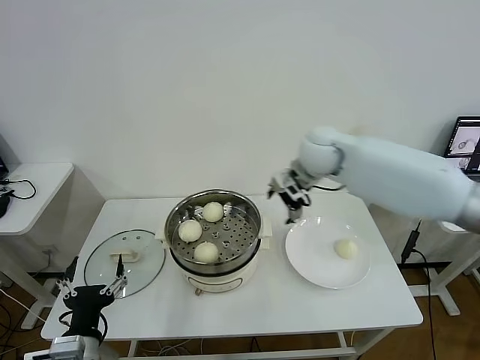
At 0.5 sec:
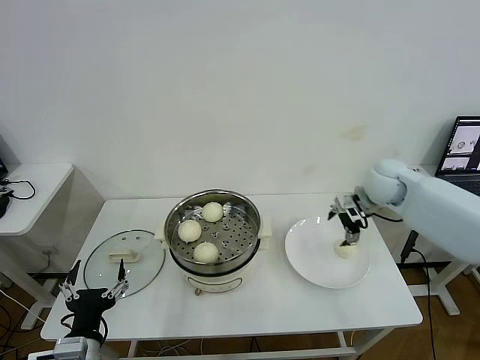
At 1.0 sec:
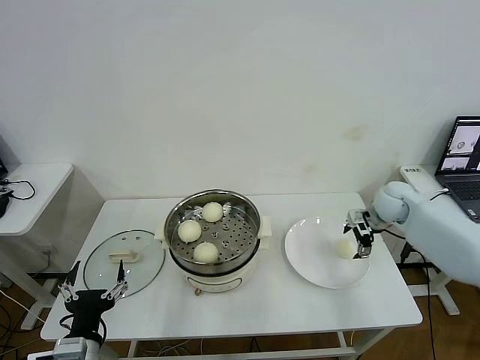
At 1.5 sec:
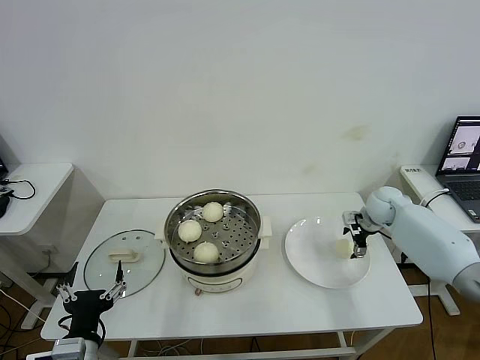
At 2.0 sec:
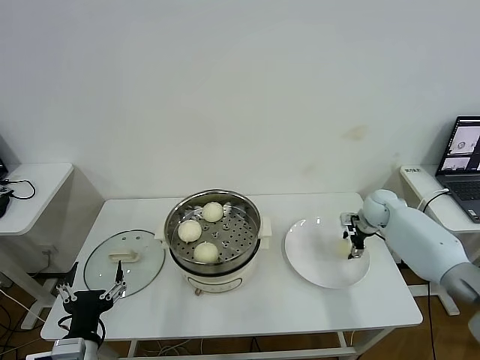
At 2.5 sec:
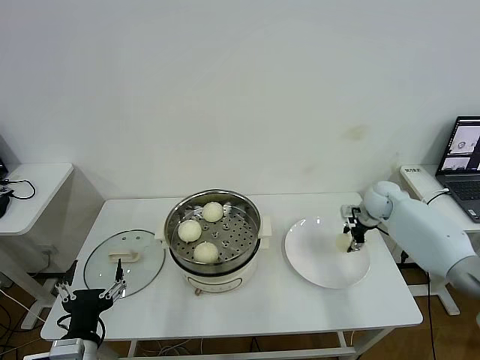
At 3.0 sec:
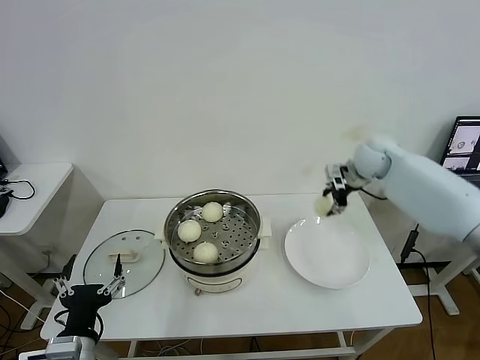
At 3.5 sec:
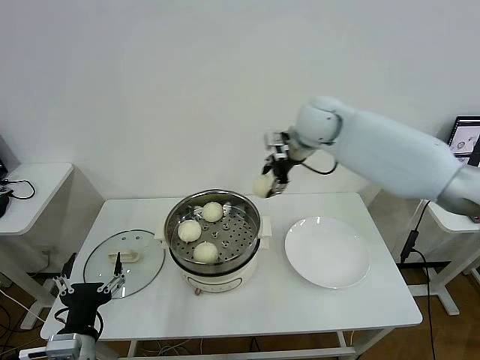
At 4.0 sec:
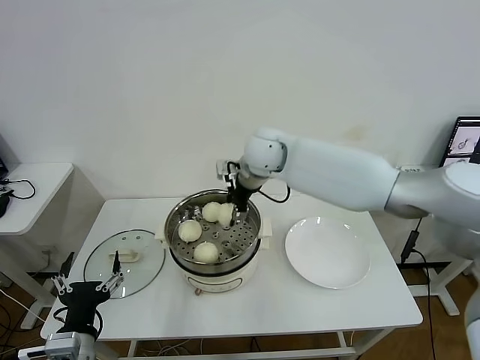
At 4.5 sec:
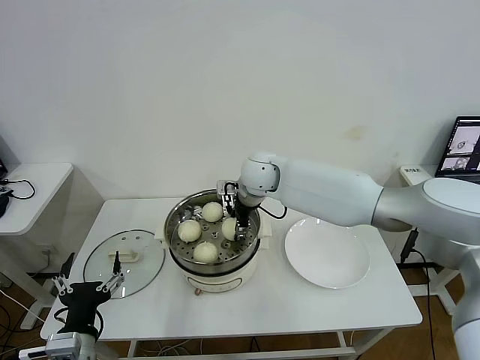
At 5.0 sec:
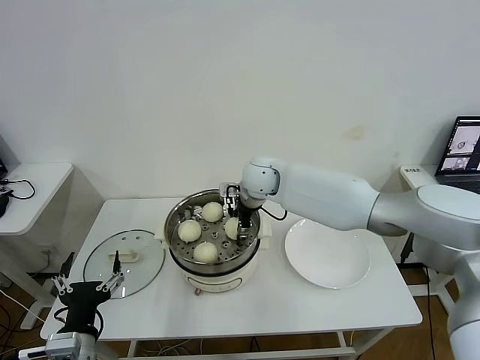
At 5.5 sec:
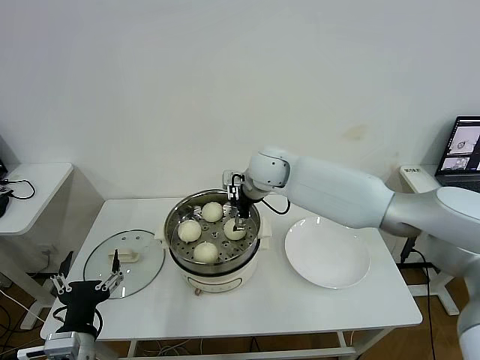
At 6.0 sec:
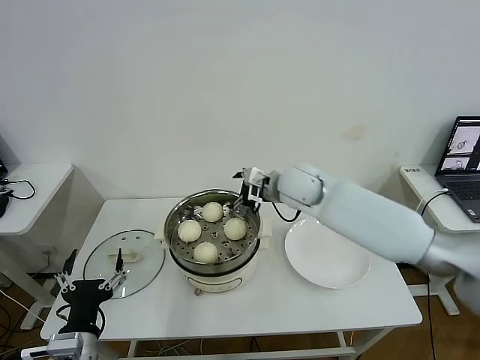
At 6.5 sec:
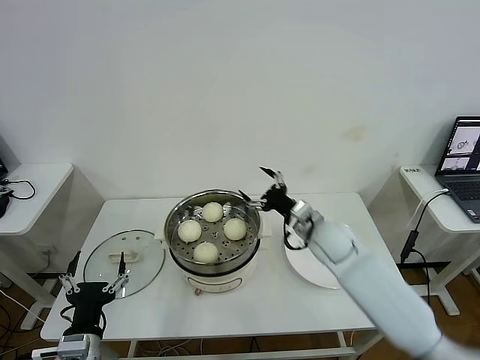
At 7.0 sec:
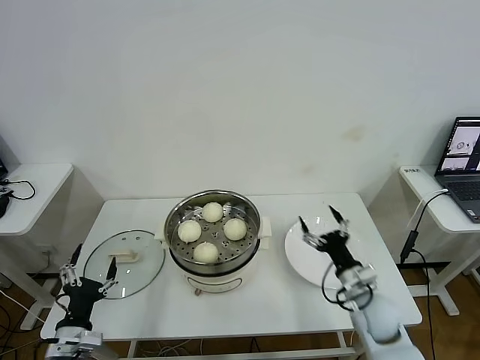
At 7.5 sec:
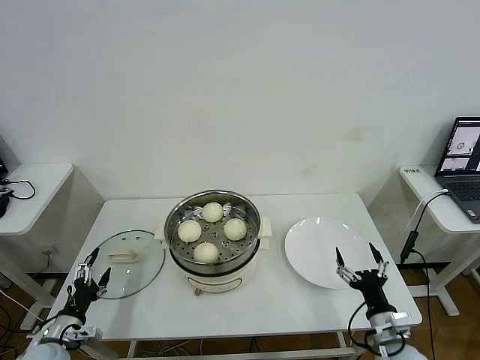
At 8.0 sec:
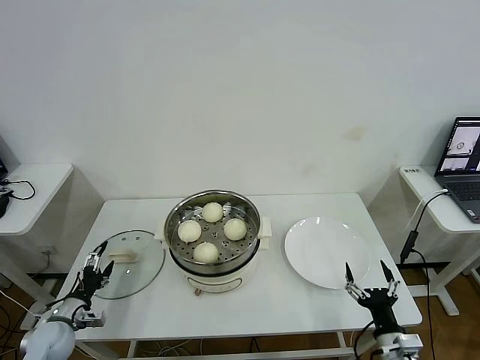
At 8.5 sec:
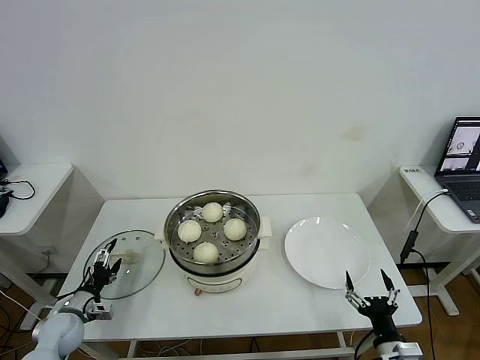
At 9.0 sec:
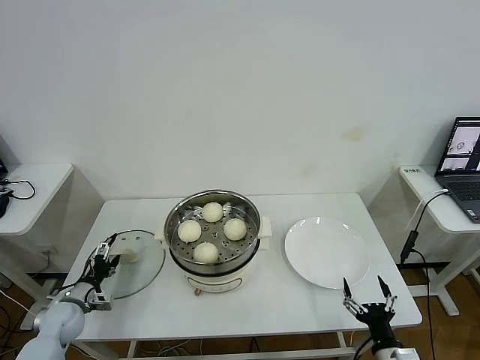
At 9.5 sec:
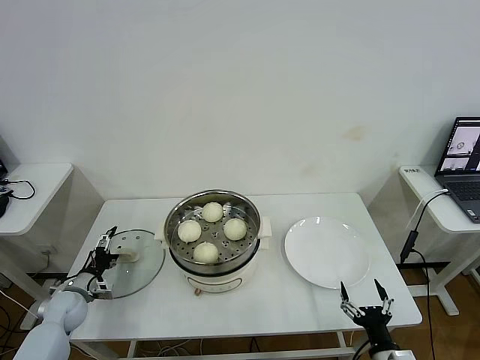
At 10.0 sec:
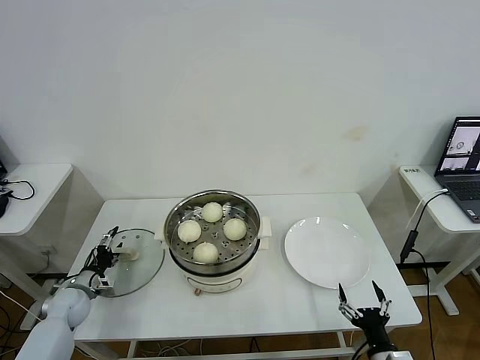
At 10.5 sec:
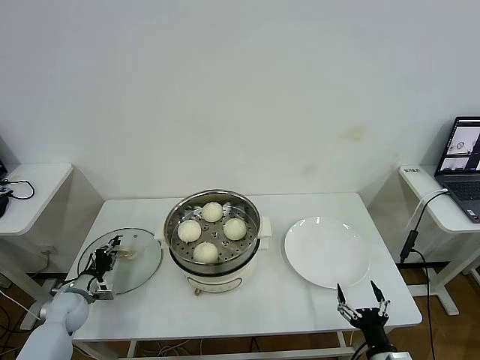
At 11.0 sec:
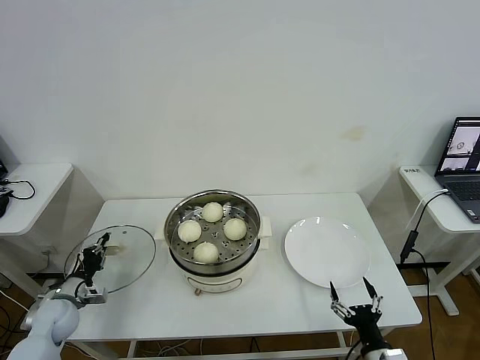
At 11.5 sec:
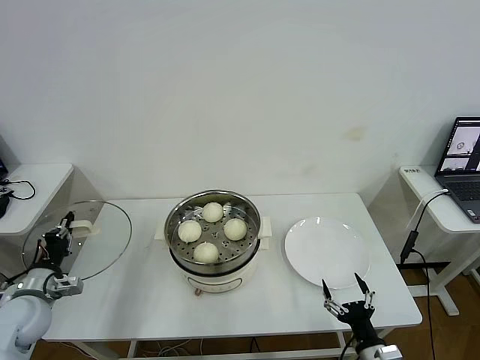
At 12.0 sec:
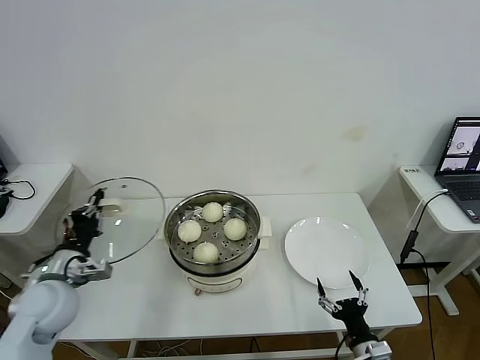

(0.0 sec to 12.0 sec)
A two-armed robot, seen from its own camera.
Task of the whole recording: take steamed baozi put them in steamer then cover it.
Step, 0.0 sec - 2.0 sec: Grasp the baozi in the plate with right gripper.
Step, 2.5 sec - 5.0 sec: Place the baozi on the steamer with right gripper.
Step, 5.5 sec - 10.5 sec: Grasp the pot lid with left gripper.
0.0 sec - 2.0 sec: The right gripper shifts approximately 30 cm downward and to the right, and closes.
2.0 sec - 4.0 sec: The right gripper heads to the left and upward, covering approximately 40 cm.
4.0 sec - 6.0 sec: The right gripper travels to the right and downward by about 10 cm, and opens up.
6.0 sec - 8.0 sec: The left gripper is displaced to the left, downward and forward by approximately 25 cm, while the right gripper heads backward, downward and to the right, covering some 50 cm.
8.0 sec - 10.0 sec: The left gripper shifts approximately 10 cm forward.
10.0 sec - 12.0 sec: The left gripper travels upward and to the right by about 20 cm, and closes its fingers.

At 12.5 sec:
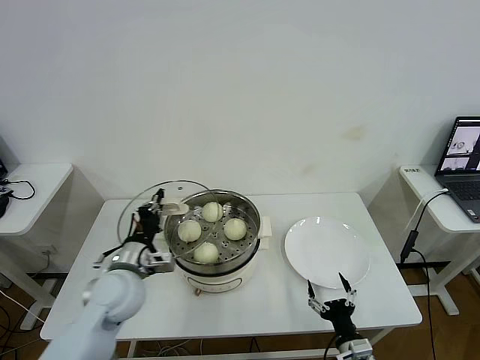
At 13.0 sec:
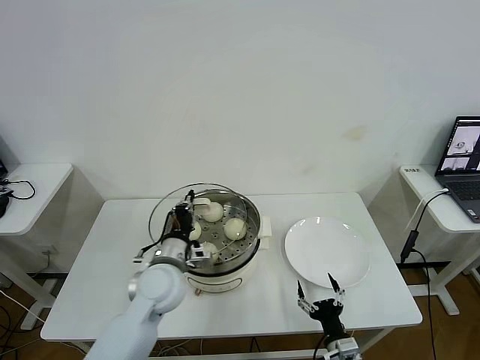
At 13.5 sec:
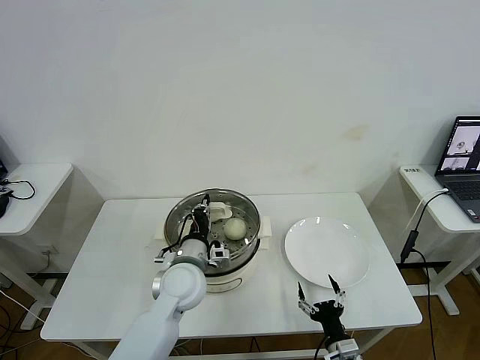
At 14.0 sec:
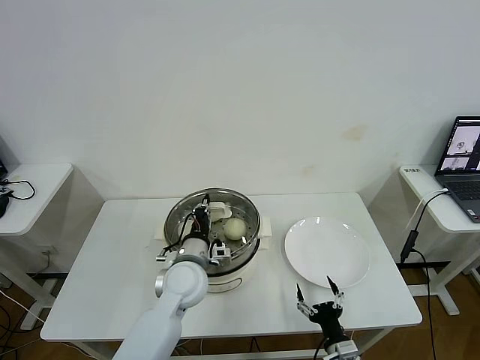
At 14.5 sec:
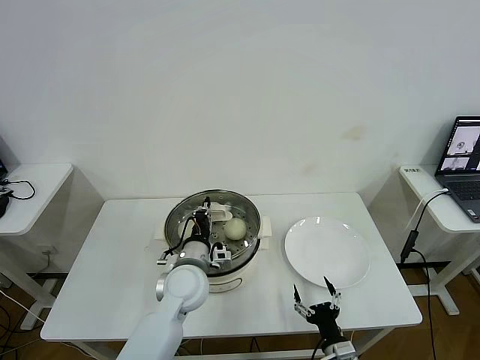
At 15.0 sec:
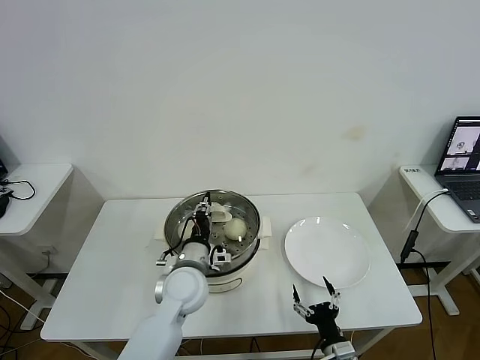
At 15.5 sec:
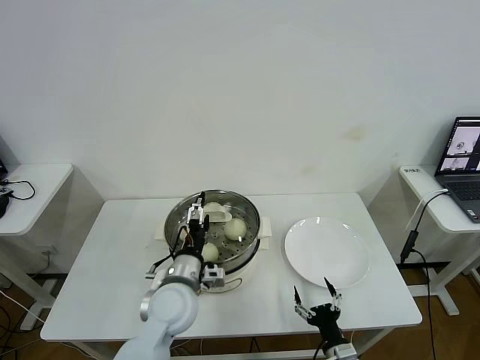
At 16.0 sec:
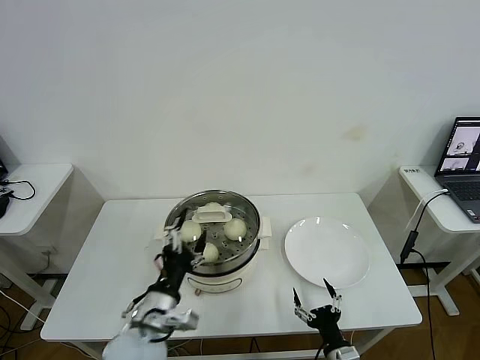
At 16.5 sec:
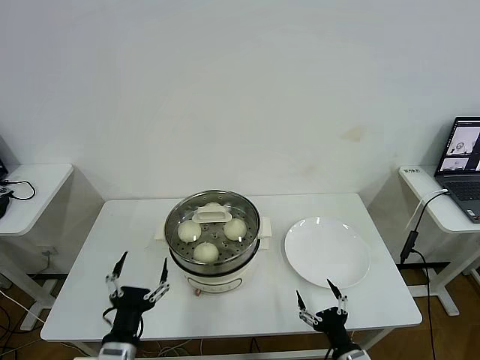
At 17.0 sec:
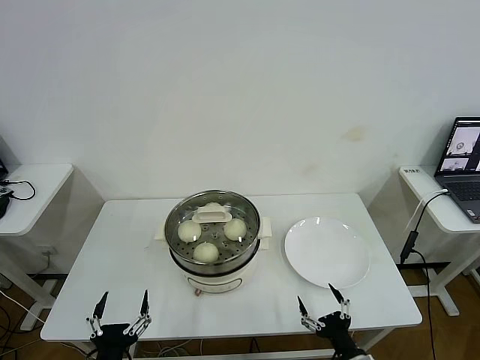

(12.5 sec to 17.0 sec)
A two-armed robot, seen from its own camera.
Task of the whole recording: take steamed baozi put them in steamer then cover it.
Step, 12.5 sec - 15.5 sec: Place the pot lid on the steamer with left gripper.
12.5 sec - 14.5 sec: The left gripper goes approximately 15 cm to the right.
14.5 sec - 17.0 sec: The right gripper moves upward, roughly 5 cm, while the left gripper heads backward and to the left, covering approximately 30 cm, and opens its fingers.
